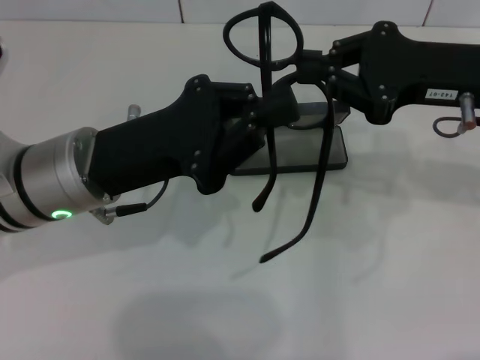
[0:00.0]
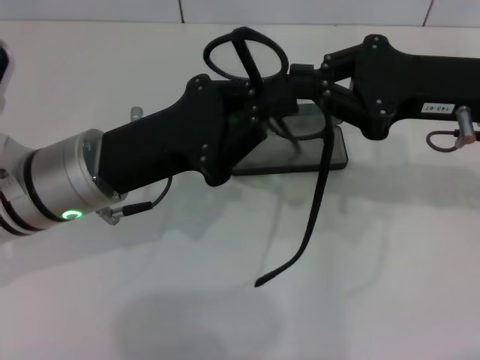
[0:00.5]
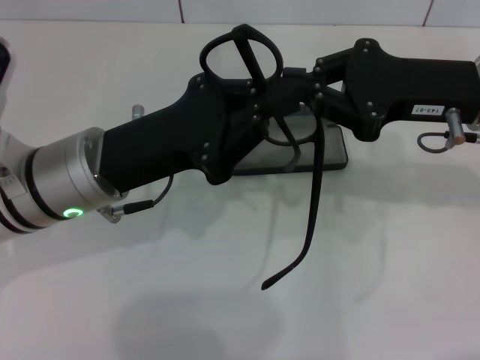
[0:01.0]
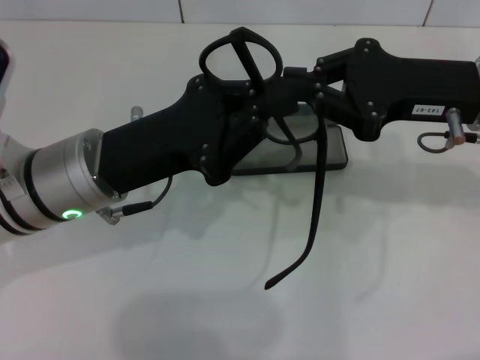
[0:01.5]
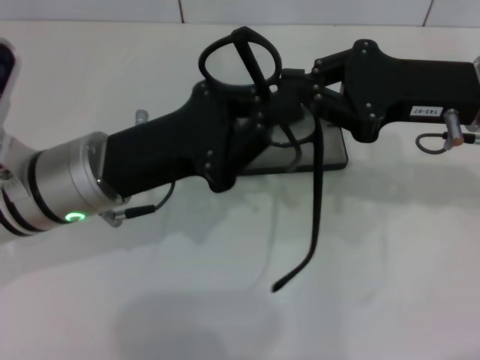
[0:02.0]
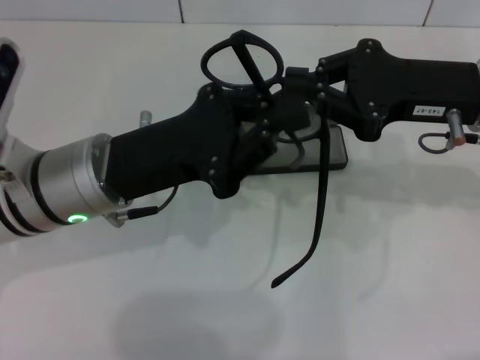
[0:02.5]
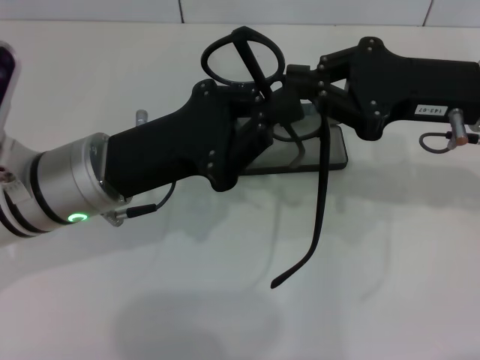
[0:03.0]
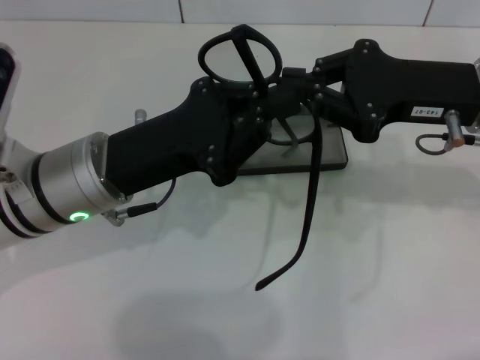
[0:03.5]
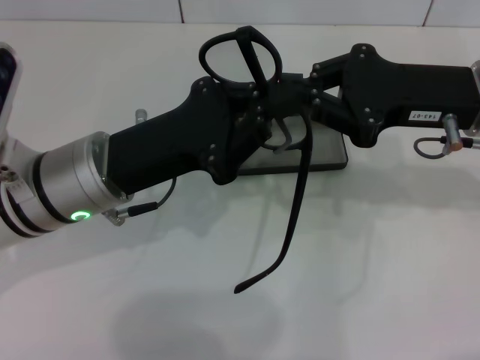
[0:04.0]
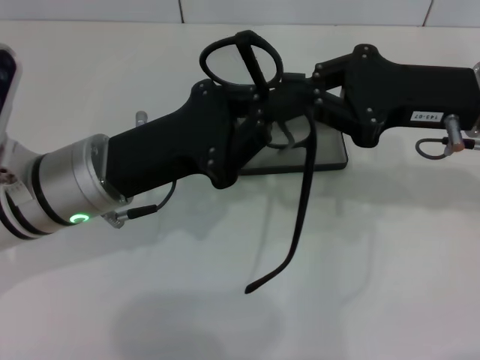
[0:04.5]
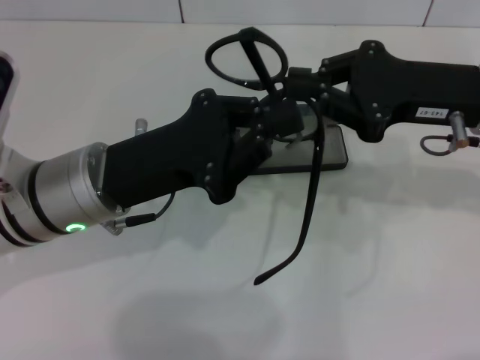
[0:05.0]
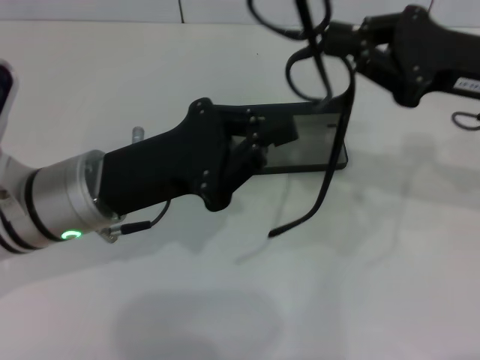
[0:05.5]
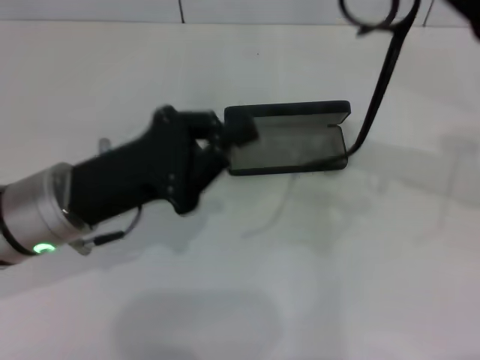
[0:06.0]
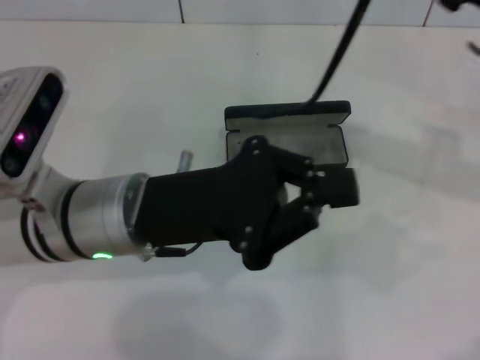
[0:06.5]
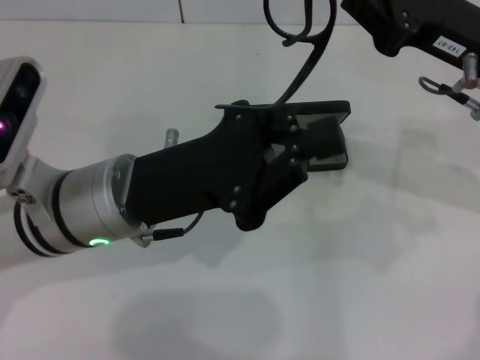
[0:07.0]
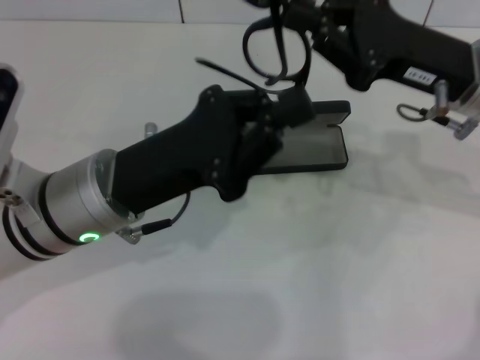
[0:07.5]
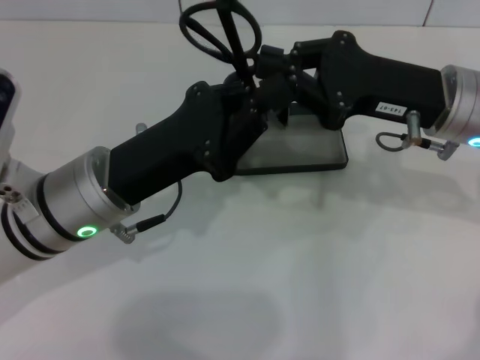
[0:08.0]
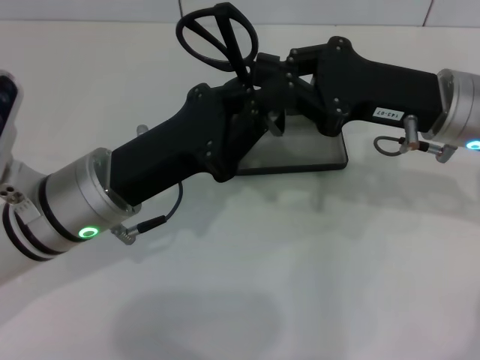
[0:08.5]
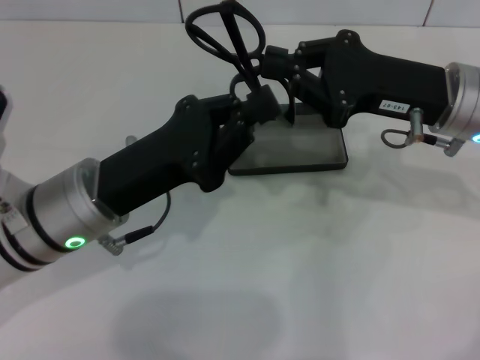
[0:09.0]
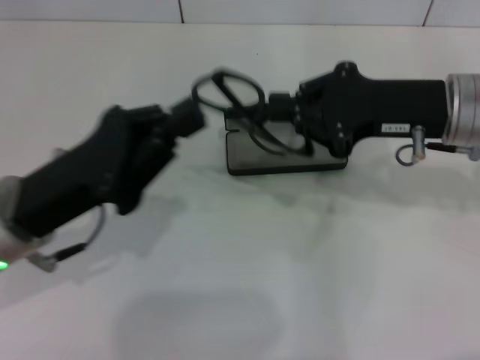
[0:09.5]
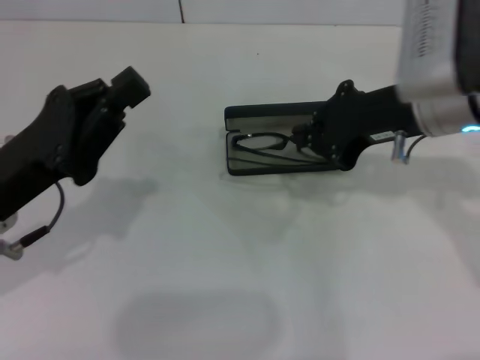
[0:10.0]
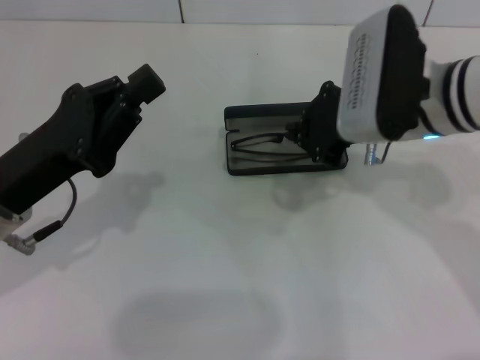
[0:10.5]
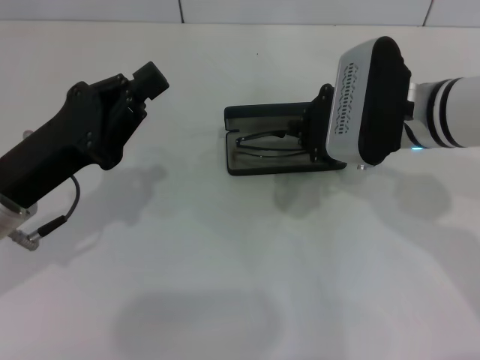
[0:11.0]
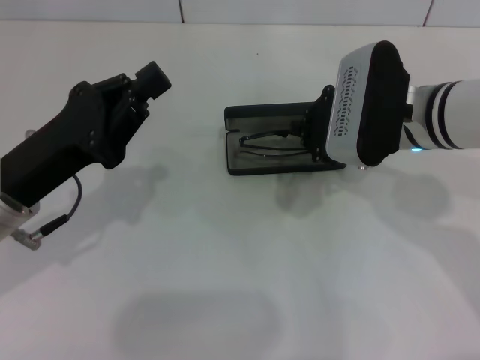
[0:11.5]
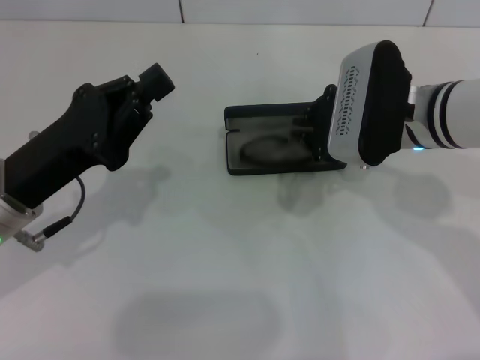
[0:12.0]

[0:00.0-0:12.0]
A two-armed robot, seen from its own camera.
Step, 0:00.0 to 0:09.0: Lift the glasses with your right hand.
0:00.0 to 0:02.0: The grippers stay close to where they were, moving slightly.
0:02.0 to 0:04.0: Both grippers stay about where they are.
0:04.0 to 0:06.0: The right gripper heads to the right, covering some 5 cm.
0:06.0 to 0:08.0: The right gripper heads to the left and downward, covering about 10 cm.
0:08.0 to 0:10.0: The left gripper is displaced to the left by some 10 cm.
0:10.0 to 0:12.0: The right gripper heads downward, covering approximately 5 cm.

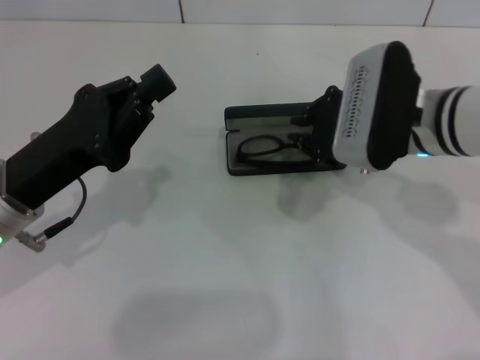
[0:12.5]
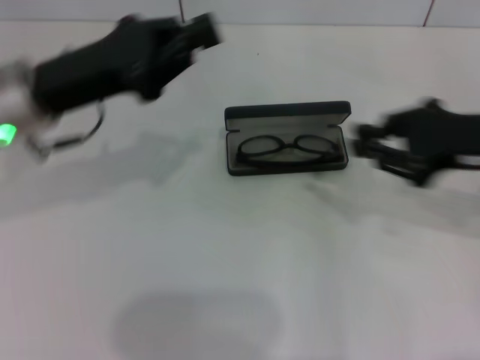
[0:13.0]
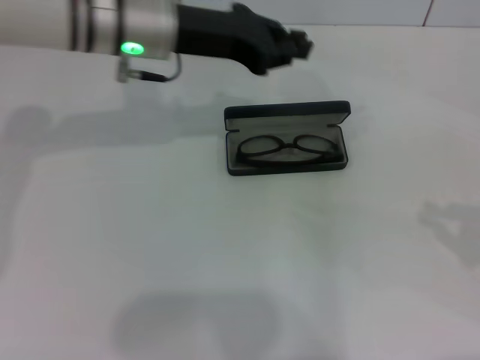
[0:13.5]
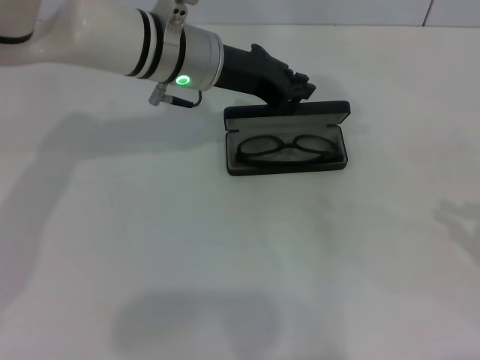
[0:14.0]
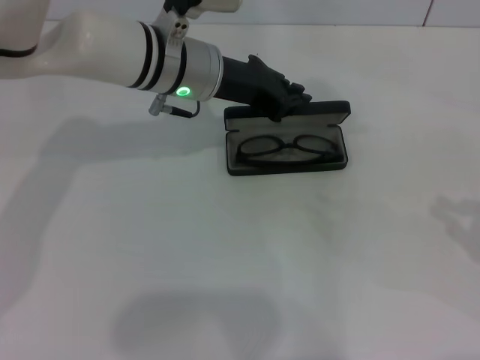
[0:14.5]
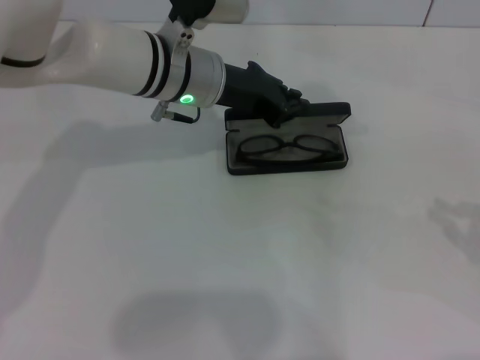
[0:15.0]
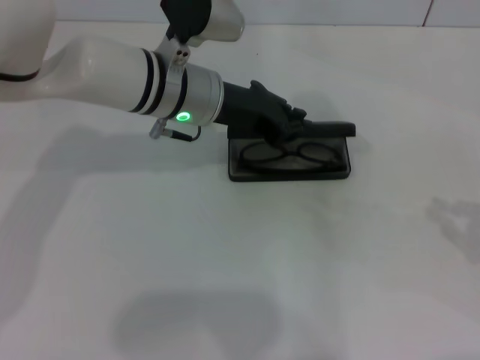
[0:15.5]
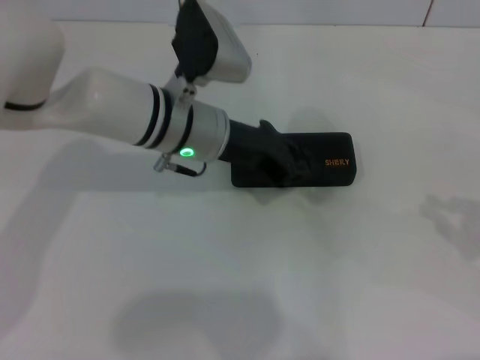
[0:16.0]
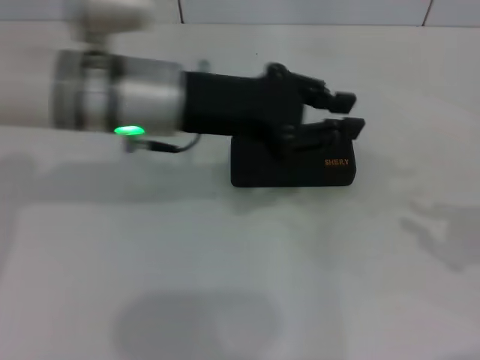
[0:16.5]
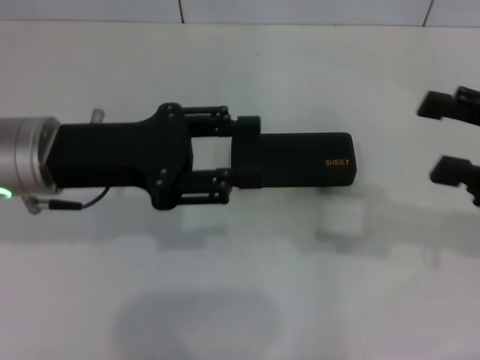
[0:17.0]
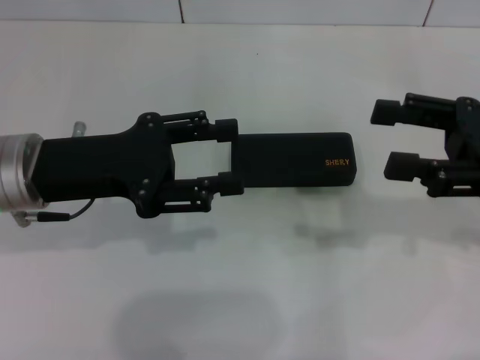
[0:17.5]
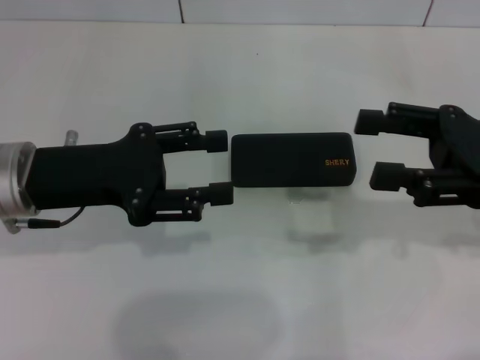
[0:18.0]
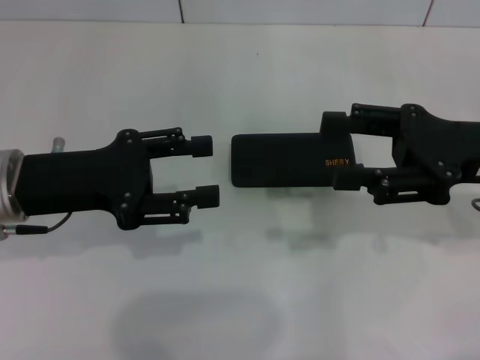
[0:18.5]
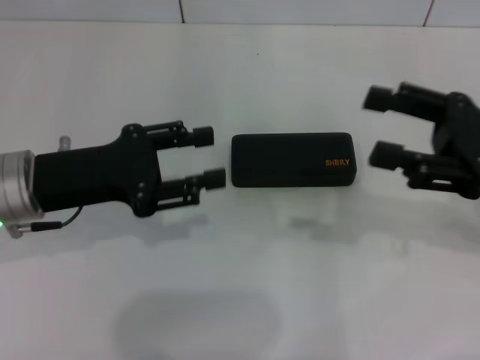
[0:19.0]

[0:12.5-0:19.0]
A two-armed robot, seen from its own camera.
Step, 0:13.0 to 0:16.0: Close the glasses case with your left hand.
0:12.5 to 0:14.5: The left gripper is displaced forward and to the right by about 20 cm, while the right gripper is displaced to the right and backward by some 30 cm.
0:14.5 to 0:17.0: The right gripper shifts roughly 10 cm to the left and forward, and opens its fingers. The left gripper heads to the left and backward, covering approximately 15 cm, and opens its fingers.
